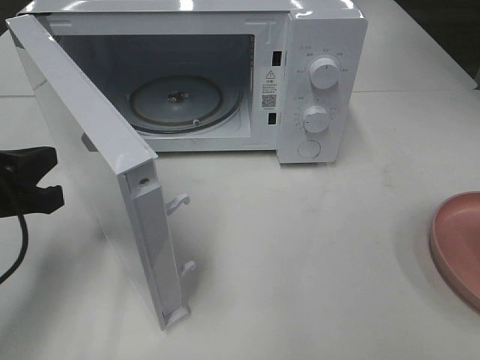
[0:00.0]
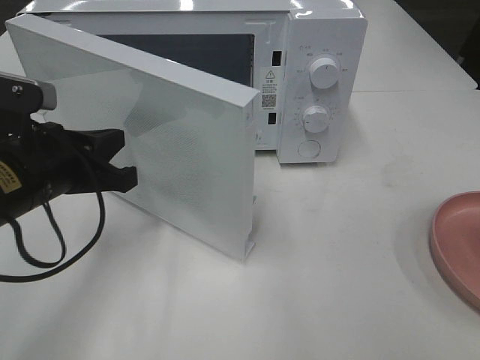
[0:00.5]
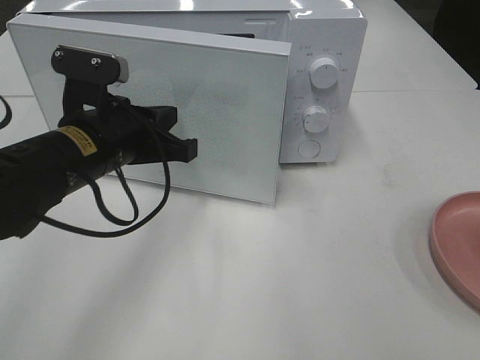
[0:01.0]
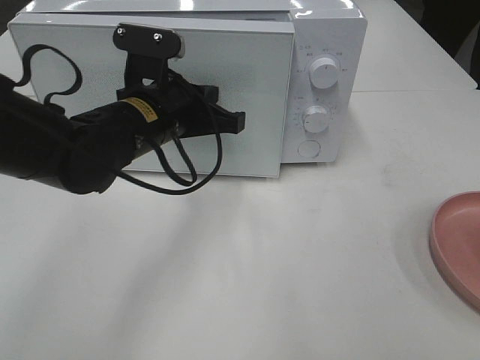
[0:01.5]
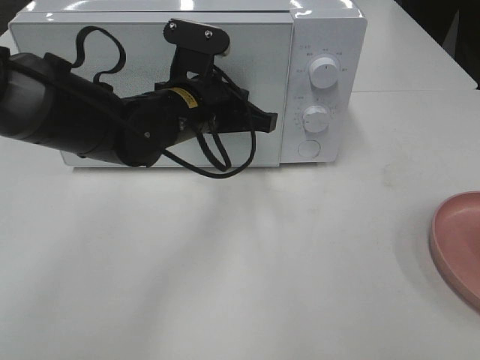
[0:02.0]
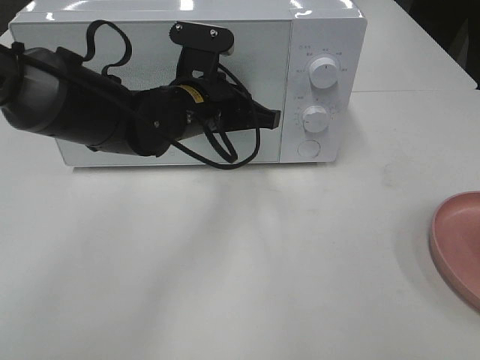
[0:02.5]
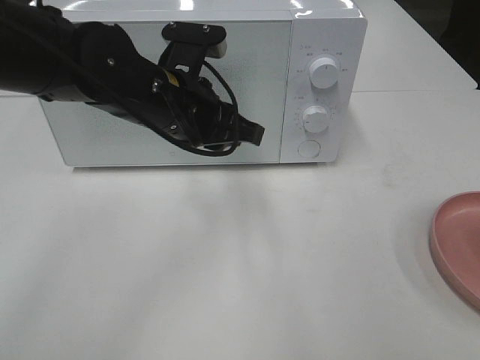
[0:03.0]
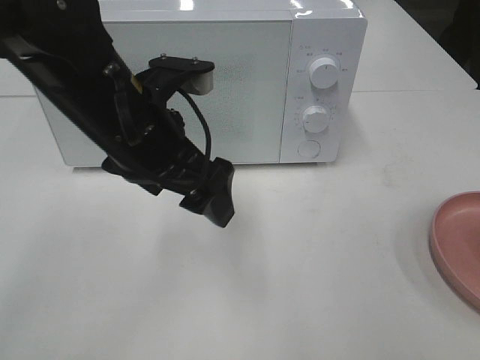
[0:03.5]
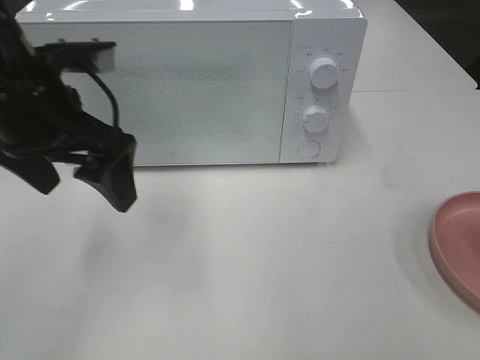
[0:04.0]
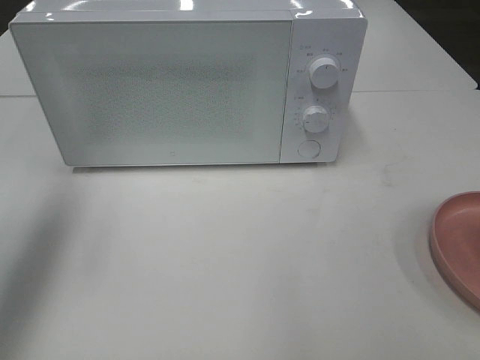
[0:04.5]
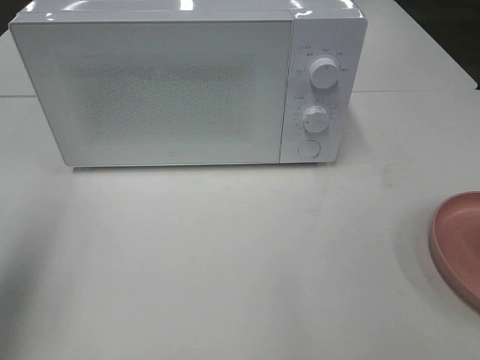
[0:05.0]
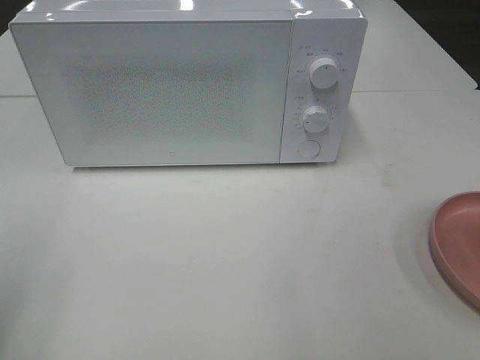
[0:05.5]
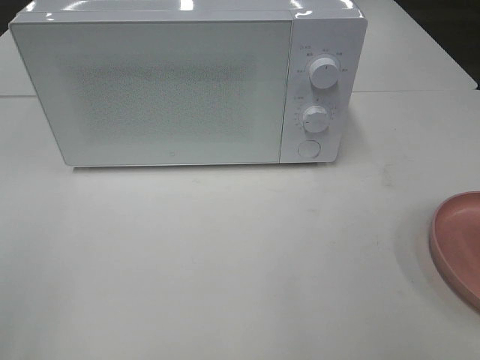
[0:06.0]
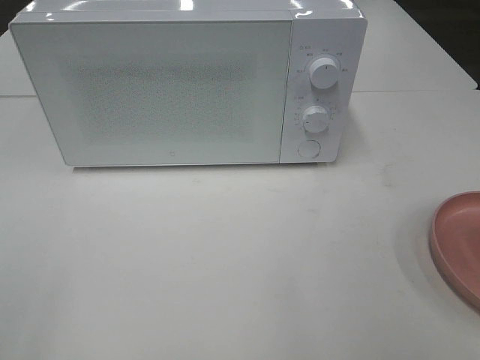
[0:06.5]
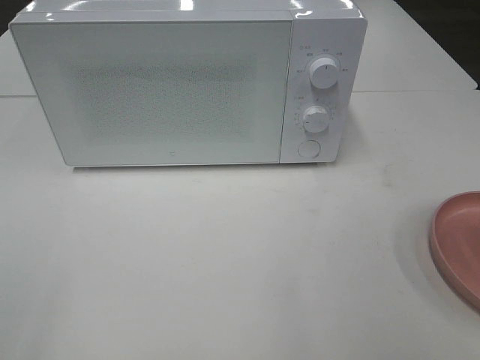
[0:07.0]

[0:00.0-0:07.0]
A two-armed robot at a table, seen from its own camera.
Task of the whole recording: Heat the burger.
Step, 0:00.0 to 0:02.5: Left hand: close the microwave door.
0:00.0 to 0:02.0: The left gripper is displaced to the right and forward by some 25 cm.
0:02.0 to 0:03.5: The left gripper is displaced backward and upward by about 10 cm, and opens.
0:03.5 to 0:05.0: The left gripper shifts some 25 cm to the left.
0:05.0 to 0:07.0: The left gripper goes roughly 15 cm backward.
